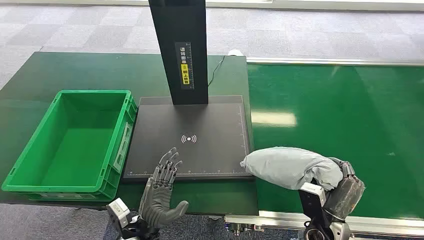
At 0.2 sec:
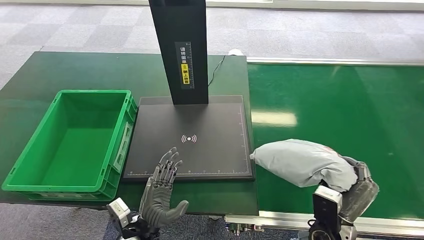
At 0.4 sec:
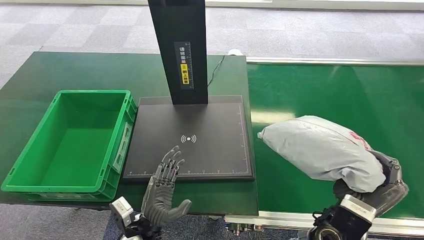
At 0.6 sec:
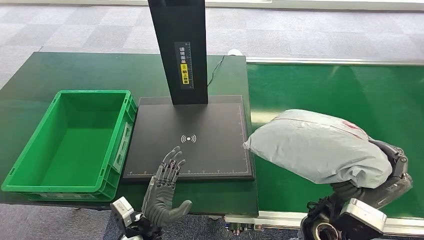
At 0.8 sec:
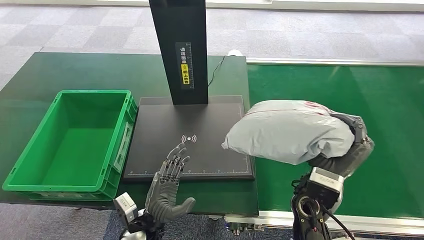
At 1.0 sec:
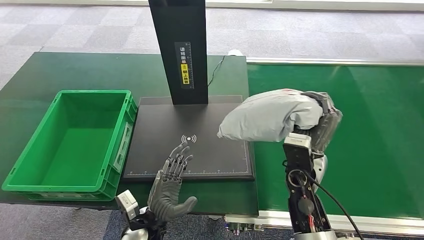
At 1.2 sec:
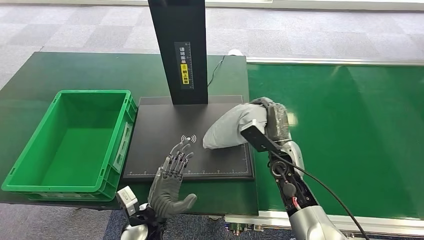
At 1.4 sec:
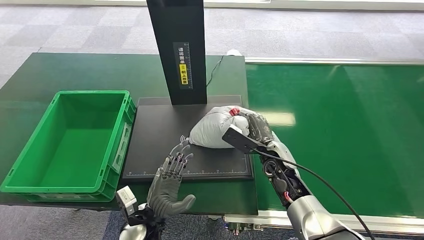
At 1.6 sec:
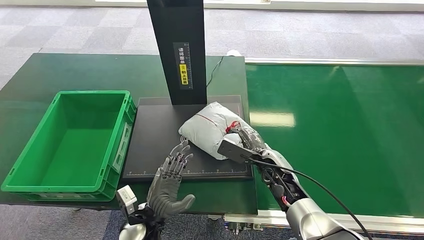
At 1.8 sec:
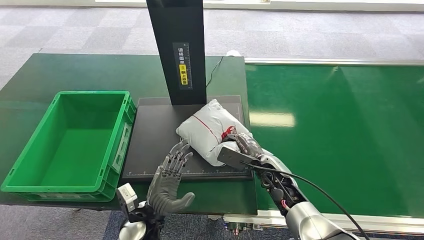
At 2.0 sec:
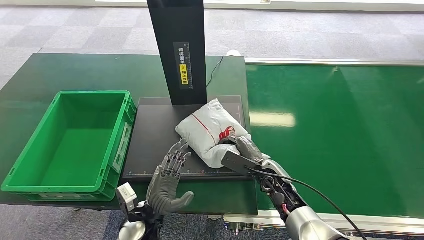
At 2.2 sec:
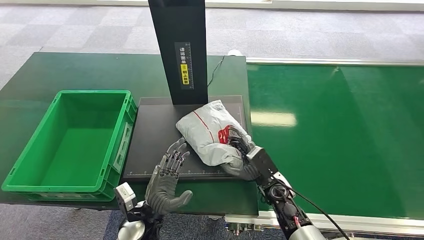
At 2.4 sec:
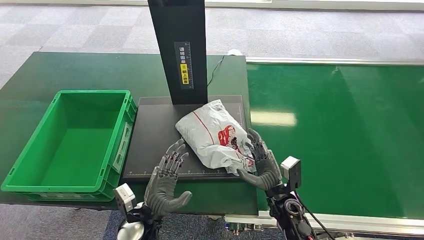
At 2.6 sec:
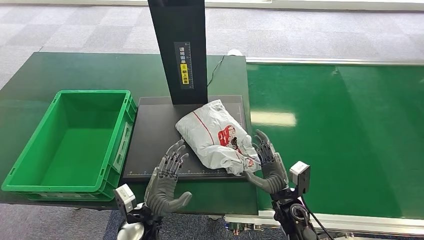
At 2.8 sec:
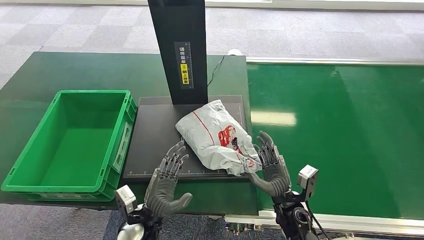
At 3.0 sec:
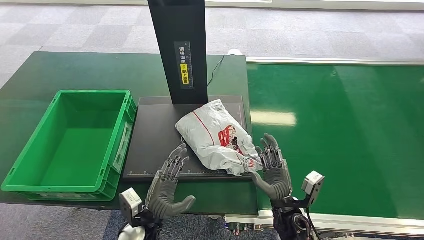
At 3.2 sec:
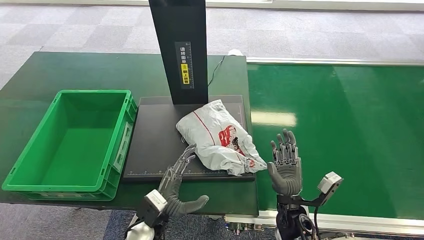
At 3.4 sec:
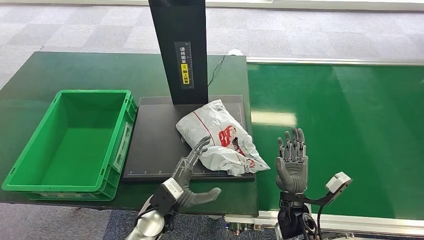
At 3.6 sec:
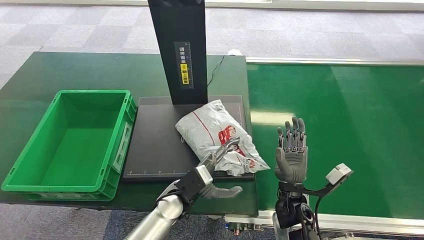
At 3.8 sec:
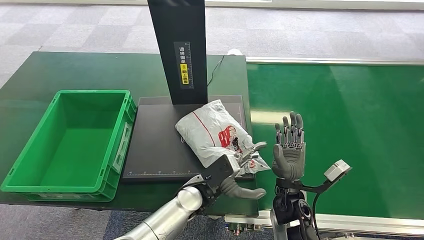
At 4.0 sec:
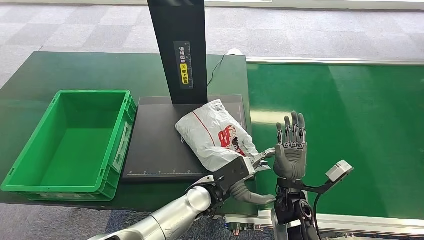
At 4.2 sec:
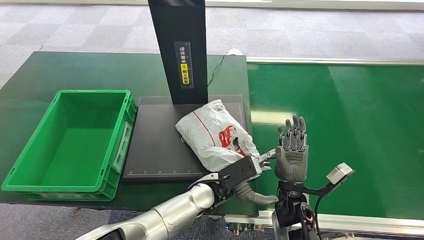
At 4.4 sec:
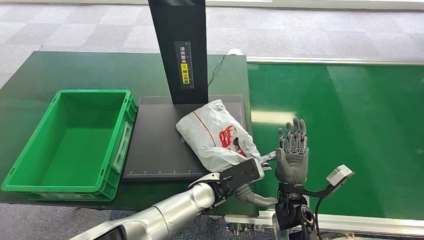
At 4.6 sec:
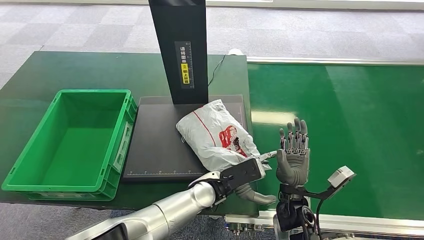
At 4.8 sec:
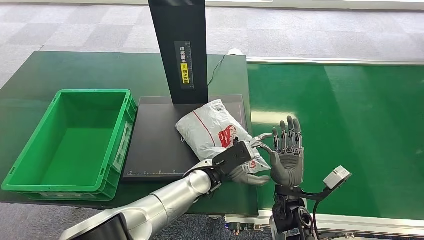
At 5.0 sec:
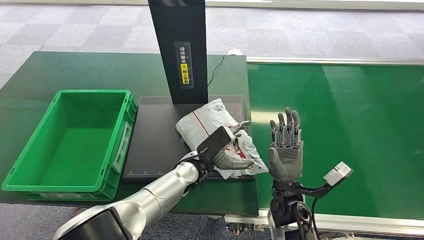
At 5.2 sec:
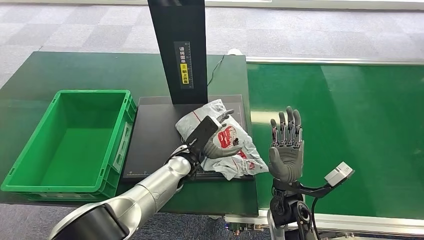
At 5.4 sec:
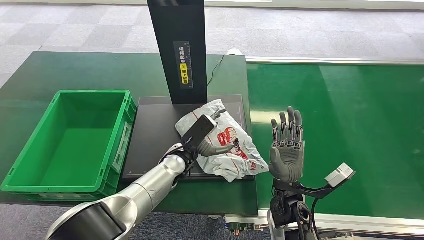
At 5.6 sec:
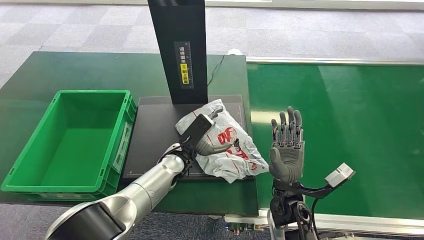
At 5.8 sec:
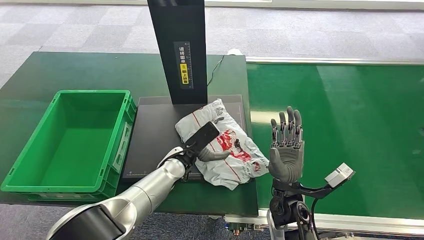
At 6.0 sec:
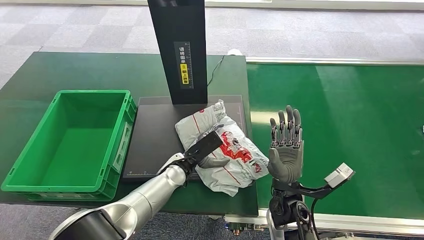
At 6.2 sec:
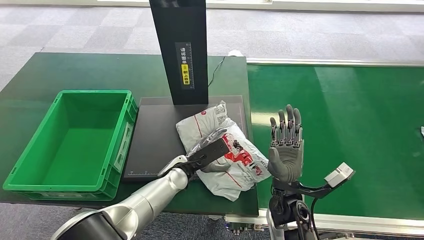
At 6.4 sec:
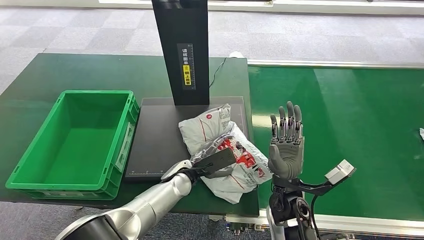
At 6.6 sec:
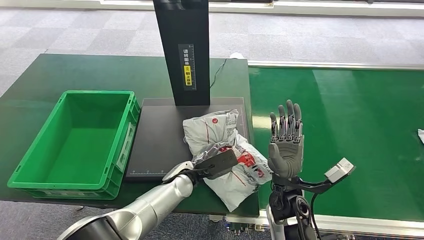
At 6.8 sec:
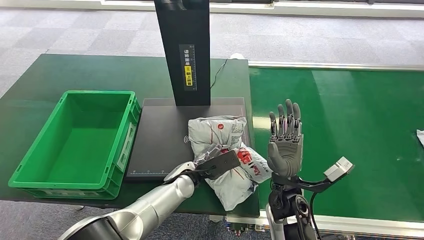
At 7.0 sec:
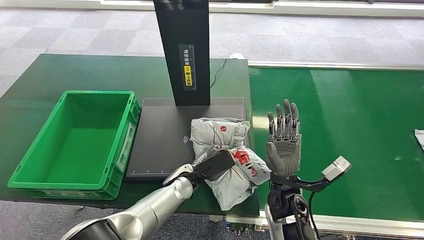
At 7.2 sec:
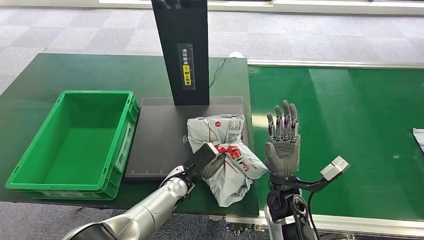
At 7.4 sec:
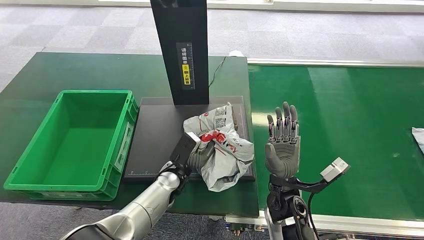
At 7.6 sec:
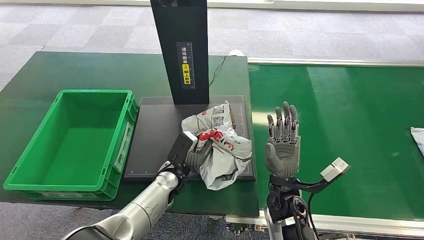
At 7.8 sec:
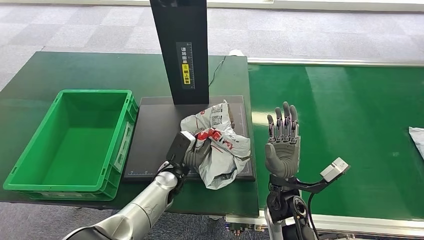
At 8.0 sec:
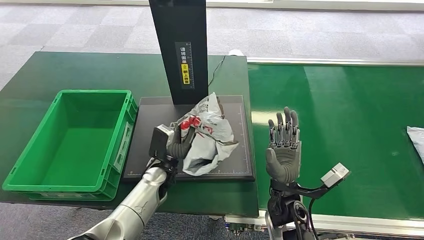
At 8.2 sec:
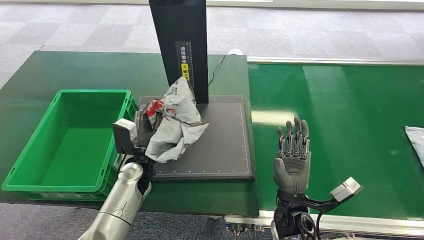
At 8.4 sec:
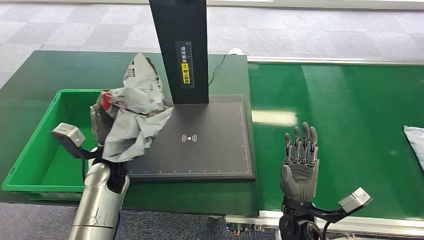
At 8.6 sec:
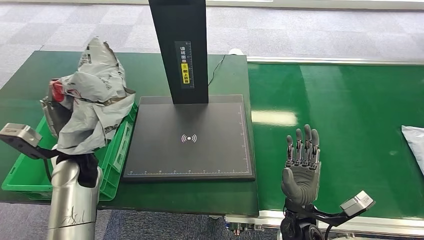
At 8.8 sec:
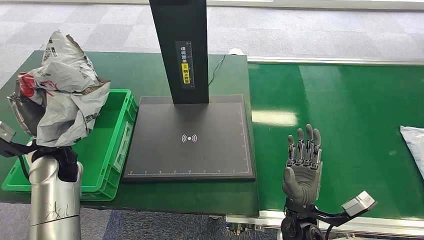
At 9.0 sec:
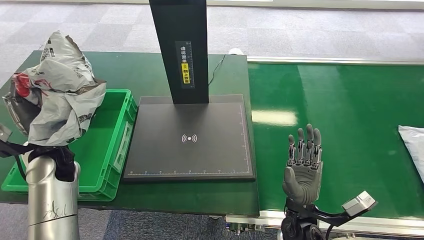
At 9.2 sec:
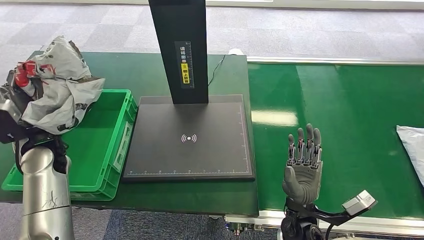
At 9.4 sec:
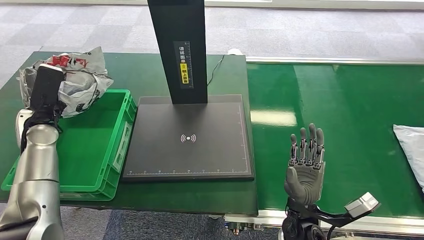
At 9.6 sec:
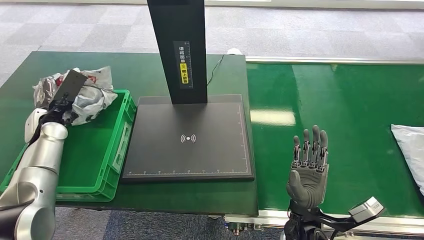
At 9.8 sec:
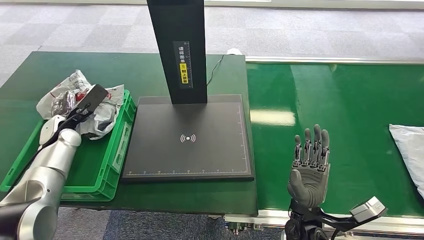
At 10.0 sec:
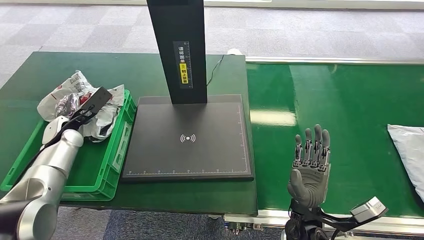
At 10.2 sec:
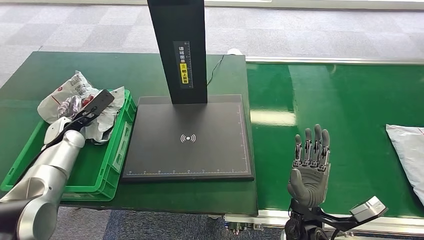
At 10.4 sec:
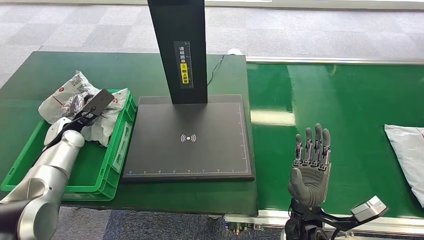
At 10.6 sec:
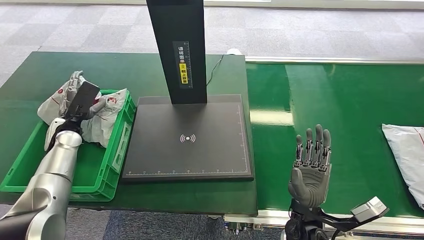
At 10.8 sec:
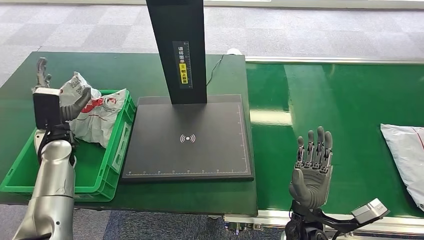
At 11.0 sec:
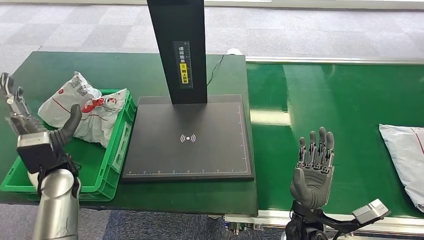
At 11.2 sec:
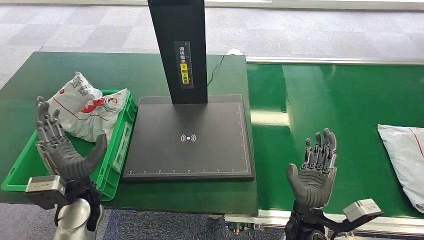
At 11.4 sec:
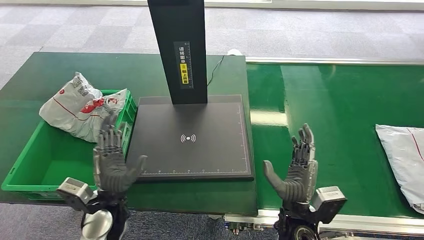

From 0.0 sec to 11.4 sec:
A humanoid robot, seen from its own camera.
Step, from 0.0 sec to 0.2 sec: Pick up the package from the conveyor belt.
From 1.4 sec to 2.8 sec: The right hand heads backward and downward, covering some 15 cm.
From 2.8 sec to 4.2 sec: The left hand is displaced to the right and forward by about 15 cm. Meanwhile the right hand shifts by some 5 cm.
From 4.2 sec to 5.6 sec: The left hand shifts approximately 10 cm to the left and forward.
From 10.0 sec to 11.4 sec: The left hand goes about 25 cm to the right and backward.
